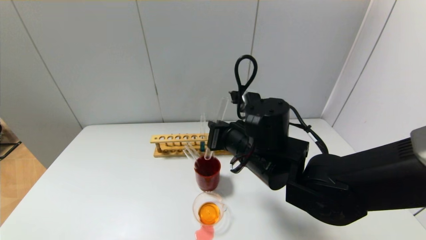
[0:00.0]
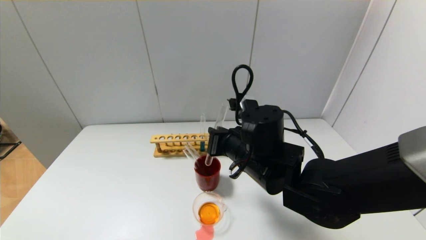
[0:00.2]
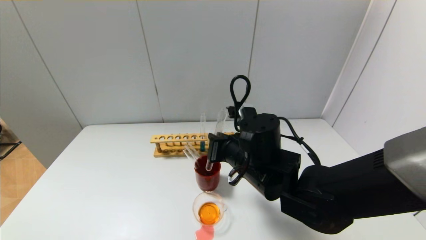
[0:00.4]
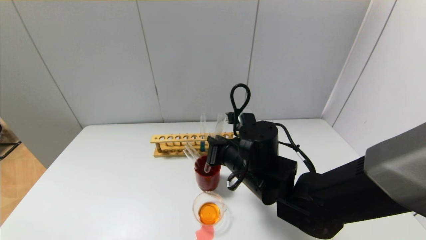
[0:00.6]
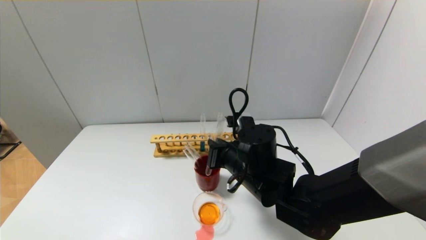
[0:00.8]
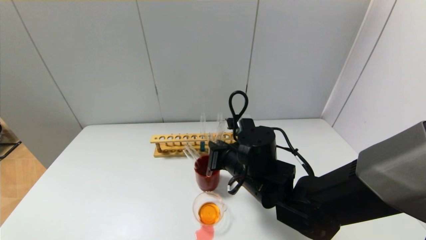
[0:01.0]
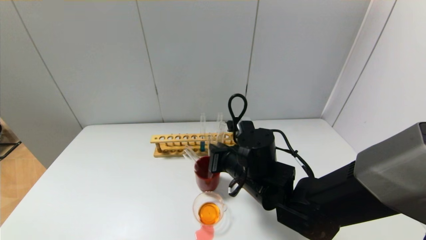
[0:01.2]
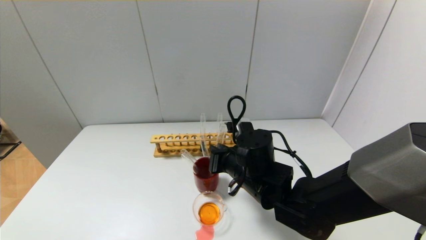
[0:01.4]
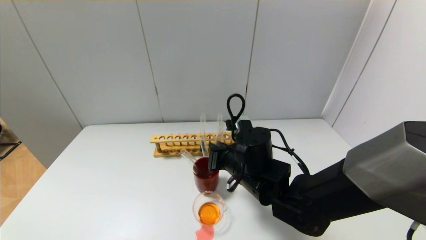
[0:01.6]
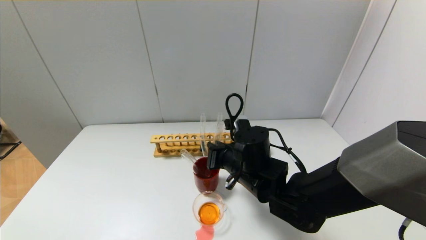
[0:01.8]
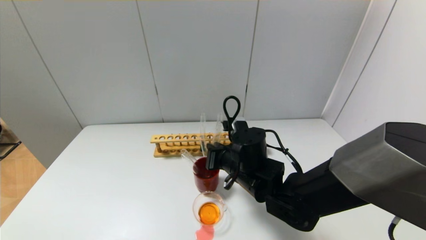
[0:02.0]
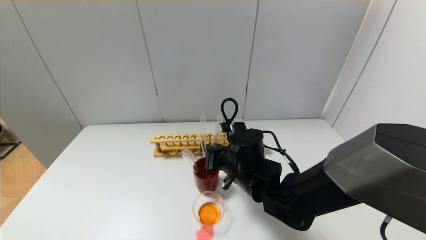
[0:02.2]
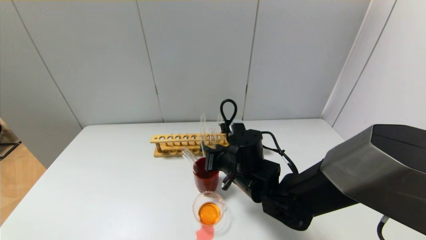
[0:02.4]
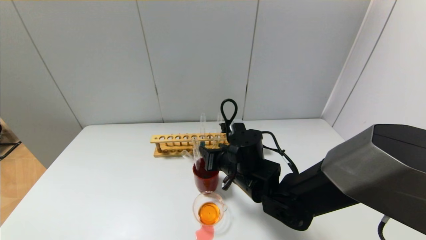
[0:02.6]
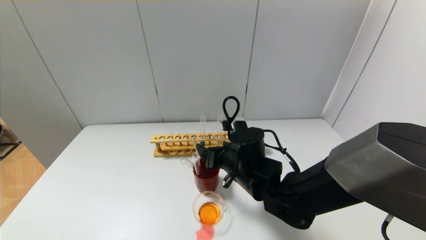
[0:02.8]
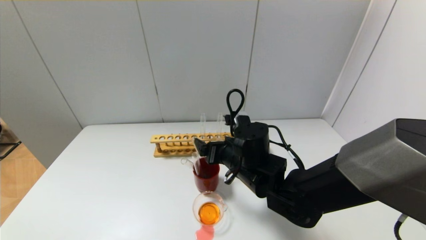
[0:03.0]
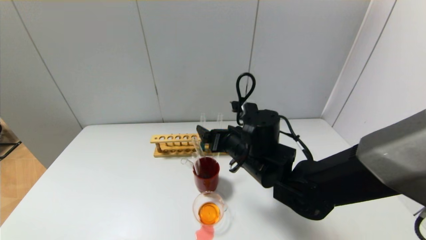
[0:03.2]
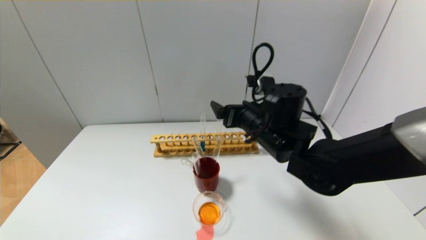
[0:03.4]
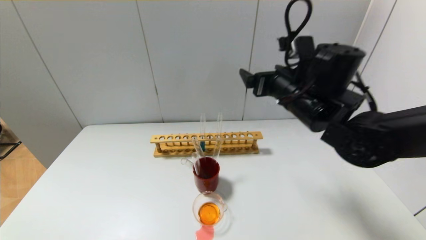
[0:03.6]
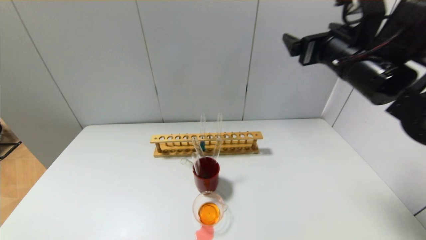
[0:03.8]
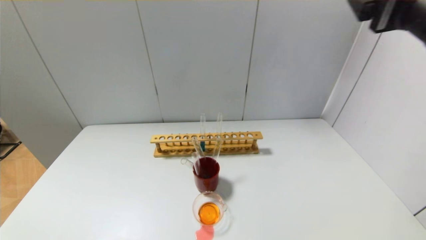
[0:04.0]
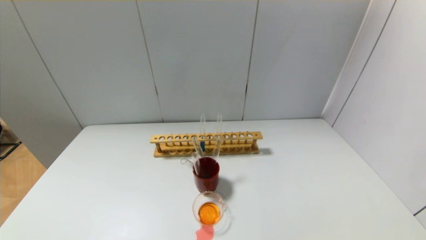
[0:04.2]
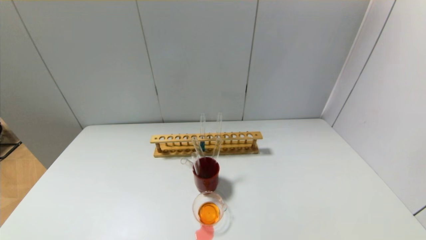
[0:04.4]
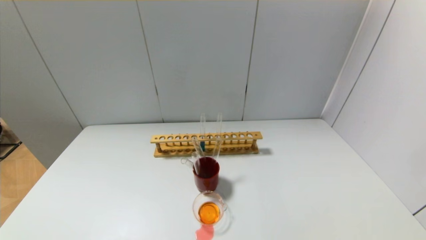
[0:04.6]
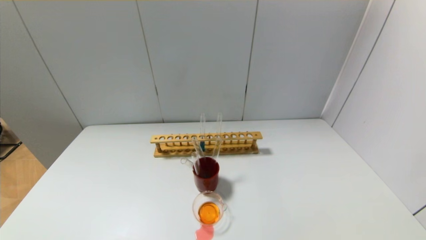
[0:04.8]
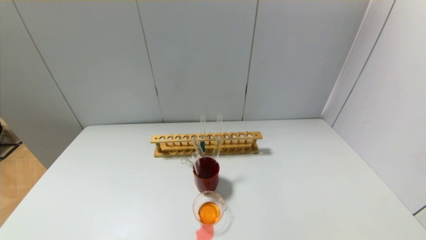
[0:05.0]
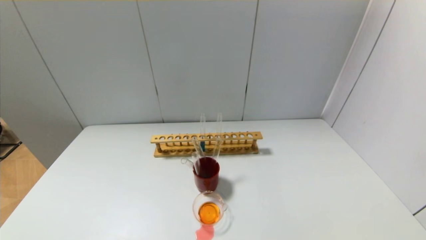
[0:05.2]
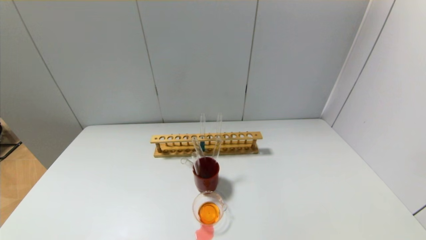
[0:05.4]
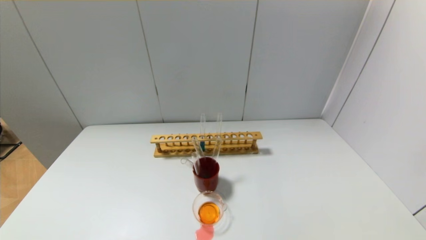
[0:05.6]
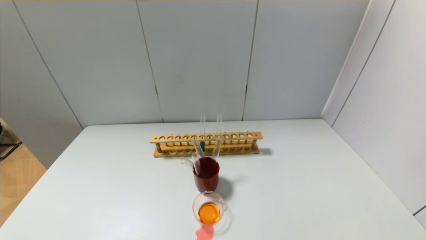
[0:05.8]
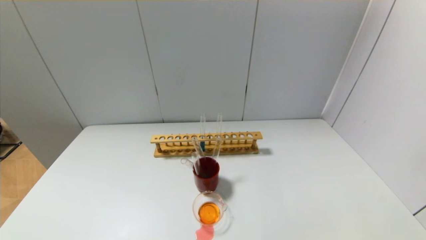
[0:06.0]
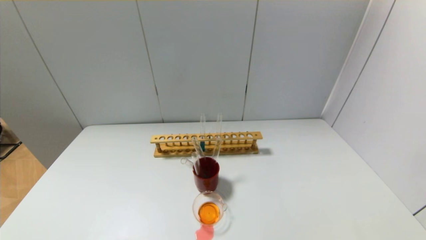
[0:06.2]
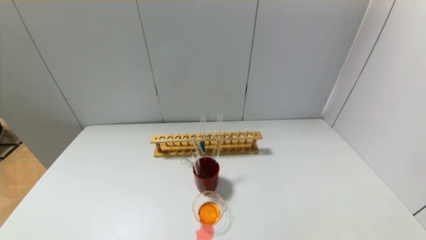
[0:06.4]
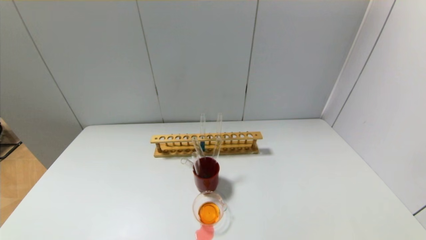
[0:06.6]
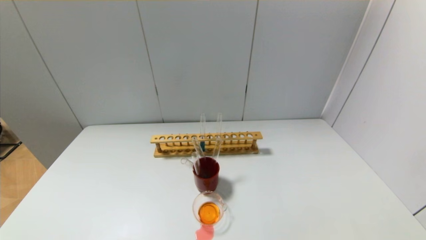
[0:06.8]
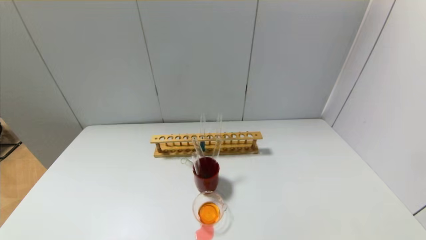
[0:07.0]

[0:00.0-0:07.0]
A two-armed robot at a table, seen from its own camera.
Step, 0:00.0 to 0:02.6: Place the test tube into the brown cup with the right gripper.
0:00.0 to 0:01.4: The right gripper is displaced downward by roughly 5 cm.
0:01.4 to 0:02.8: The right gripper opens up.
0:02.8 to 0:04.2: The right gripper shifts approximately 40 cm upward, to the right and backward.
